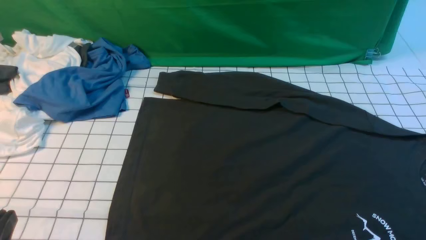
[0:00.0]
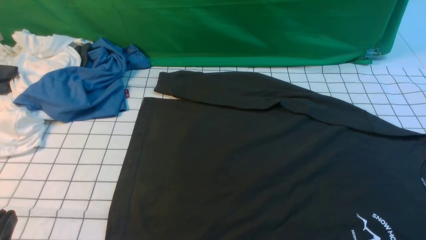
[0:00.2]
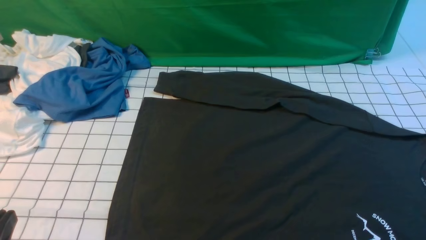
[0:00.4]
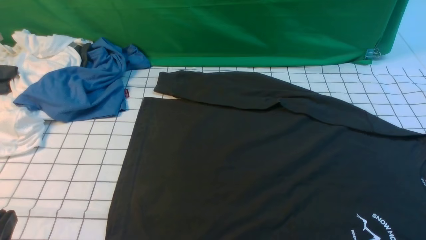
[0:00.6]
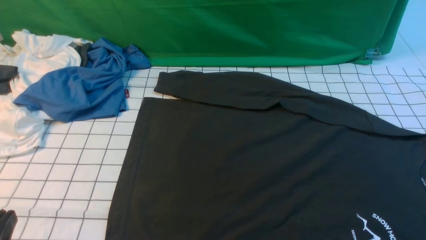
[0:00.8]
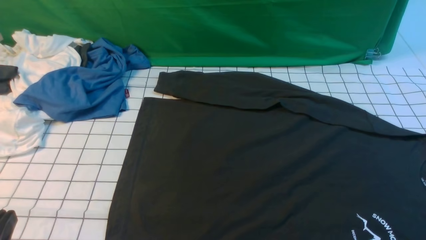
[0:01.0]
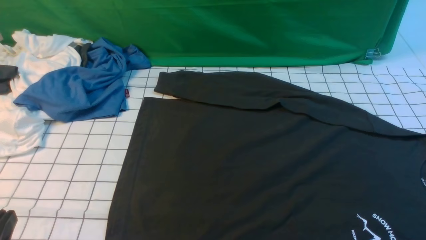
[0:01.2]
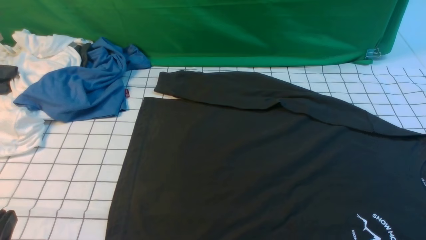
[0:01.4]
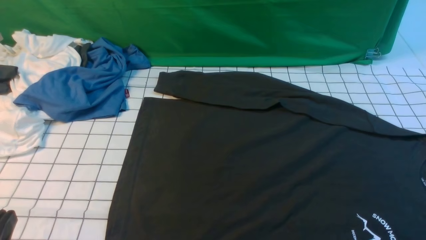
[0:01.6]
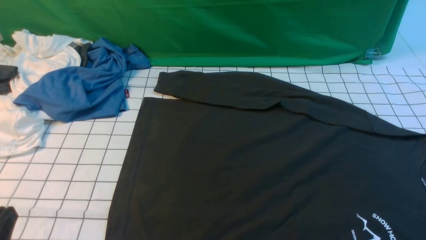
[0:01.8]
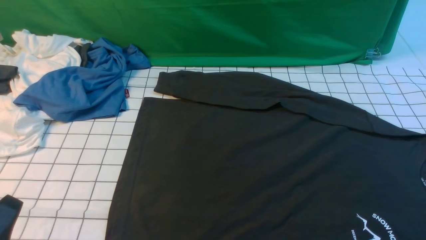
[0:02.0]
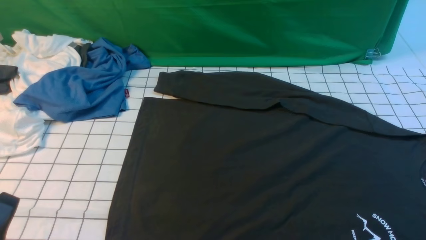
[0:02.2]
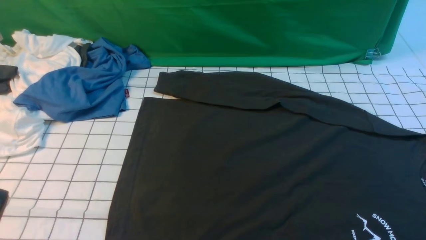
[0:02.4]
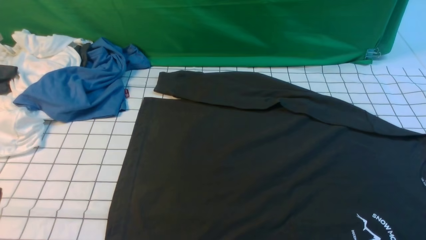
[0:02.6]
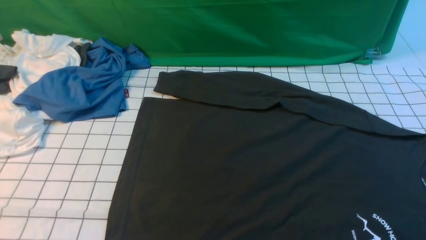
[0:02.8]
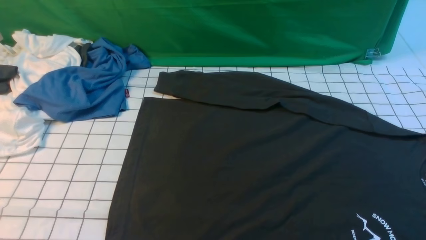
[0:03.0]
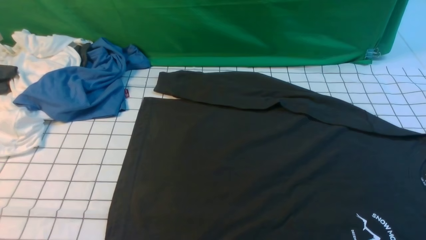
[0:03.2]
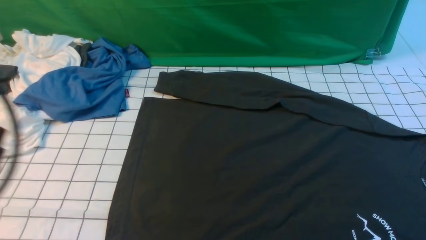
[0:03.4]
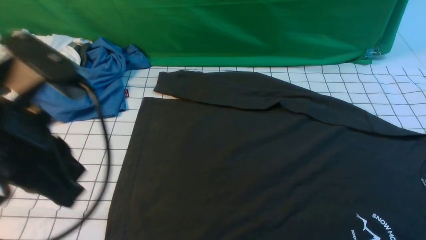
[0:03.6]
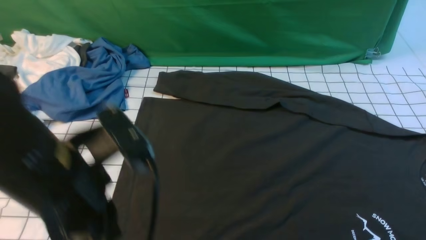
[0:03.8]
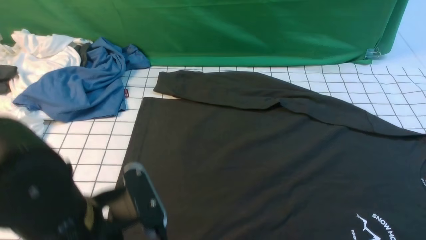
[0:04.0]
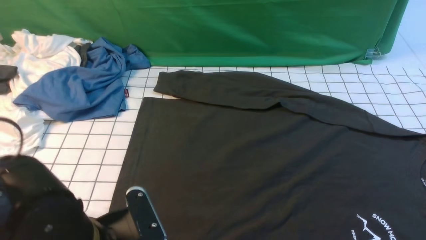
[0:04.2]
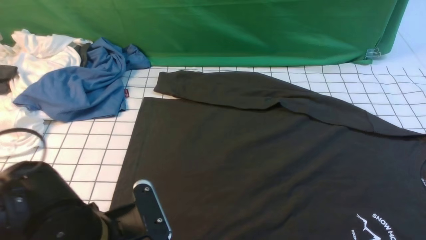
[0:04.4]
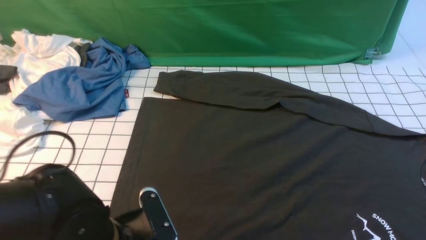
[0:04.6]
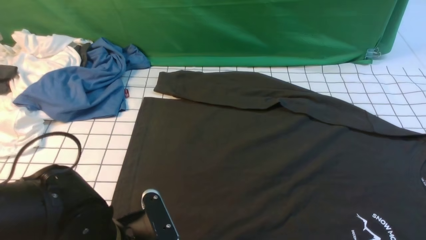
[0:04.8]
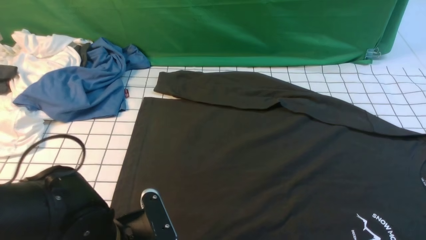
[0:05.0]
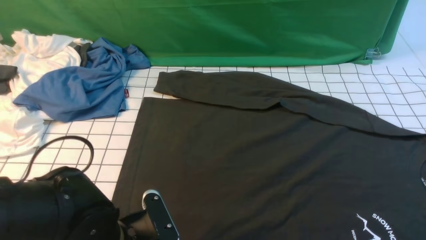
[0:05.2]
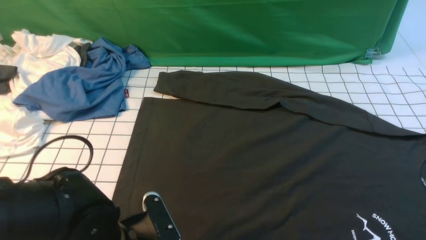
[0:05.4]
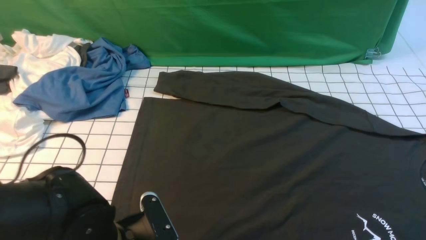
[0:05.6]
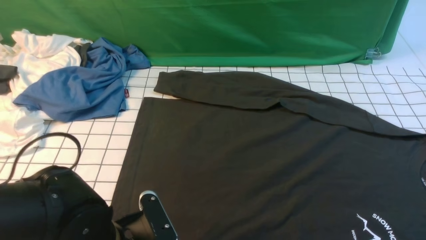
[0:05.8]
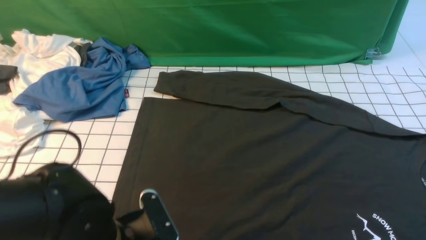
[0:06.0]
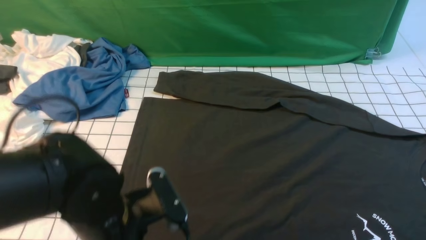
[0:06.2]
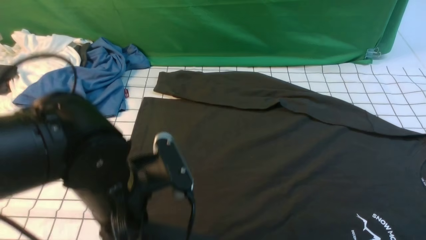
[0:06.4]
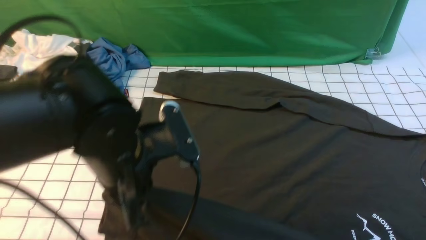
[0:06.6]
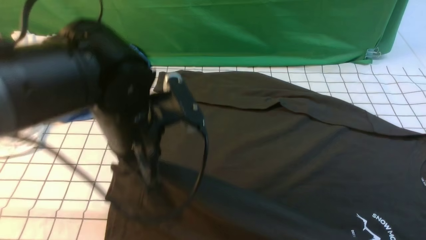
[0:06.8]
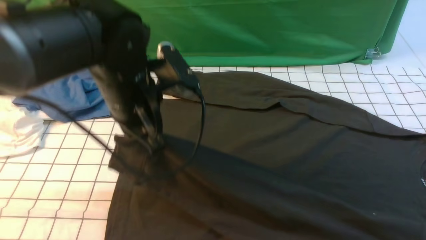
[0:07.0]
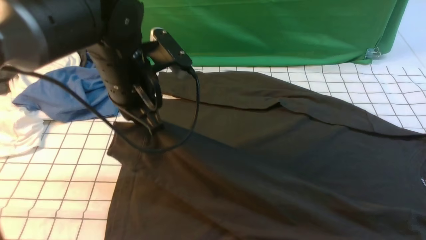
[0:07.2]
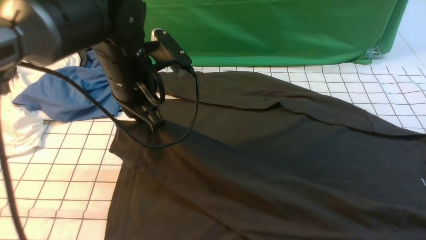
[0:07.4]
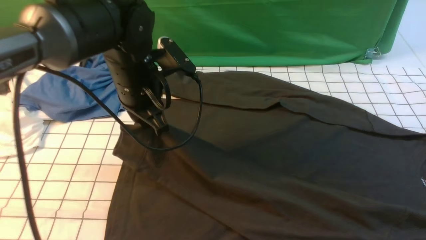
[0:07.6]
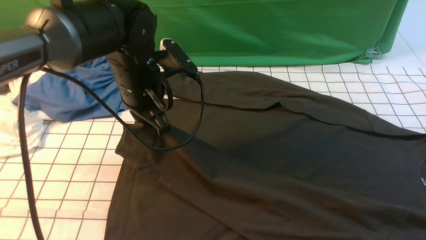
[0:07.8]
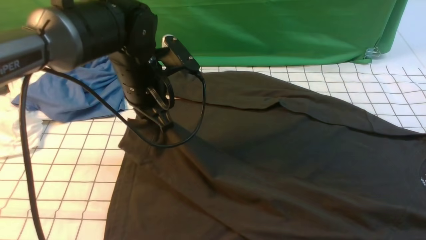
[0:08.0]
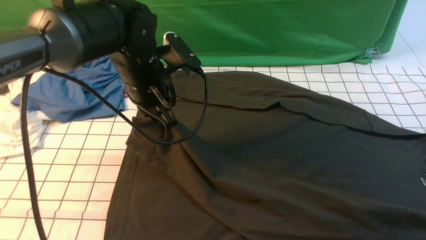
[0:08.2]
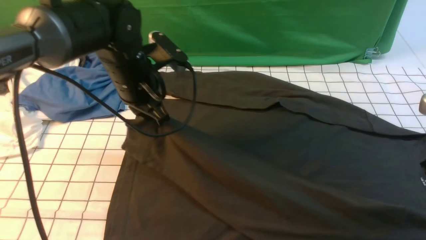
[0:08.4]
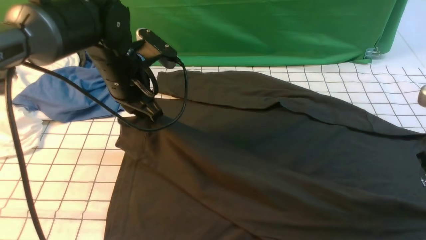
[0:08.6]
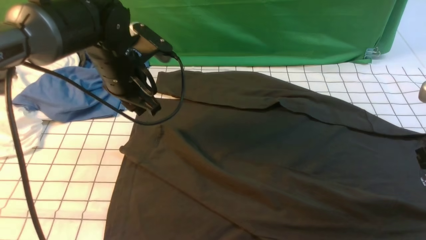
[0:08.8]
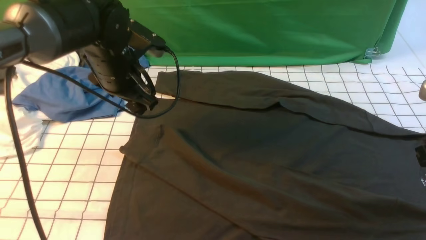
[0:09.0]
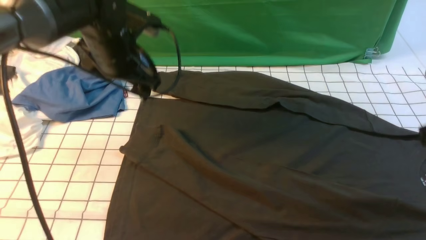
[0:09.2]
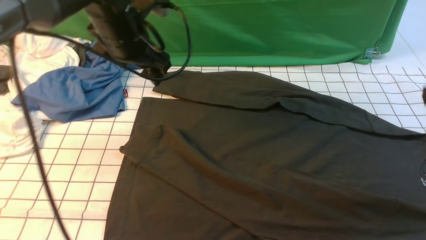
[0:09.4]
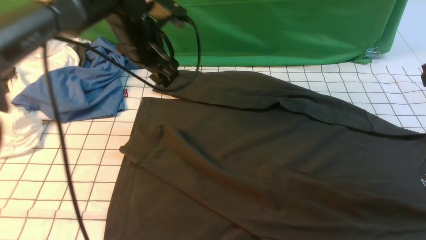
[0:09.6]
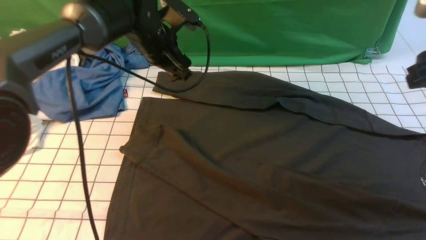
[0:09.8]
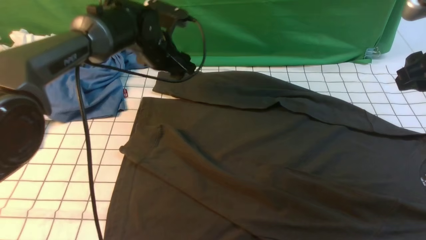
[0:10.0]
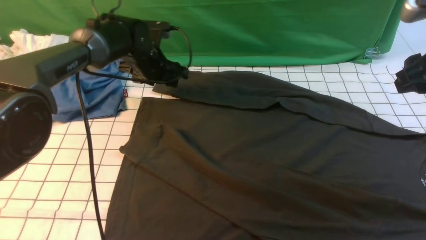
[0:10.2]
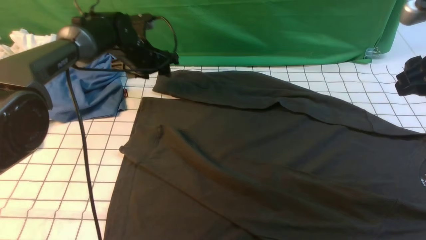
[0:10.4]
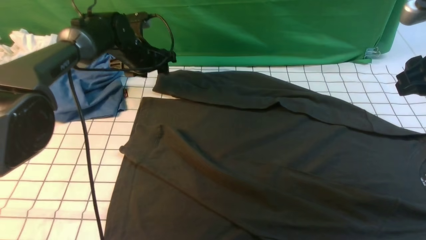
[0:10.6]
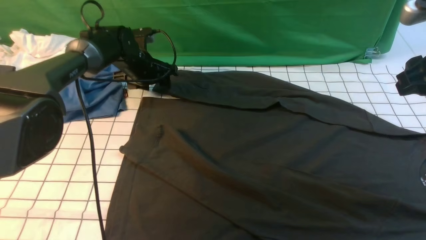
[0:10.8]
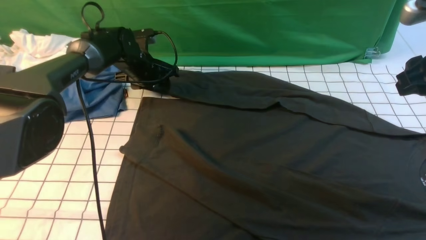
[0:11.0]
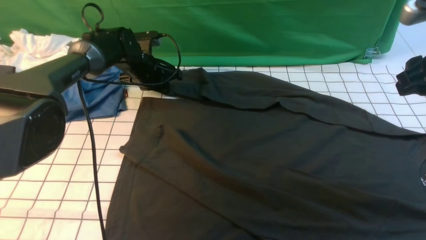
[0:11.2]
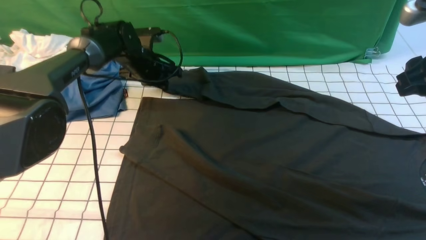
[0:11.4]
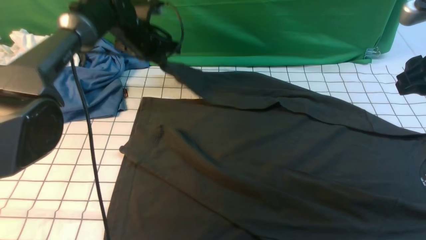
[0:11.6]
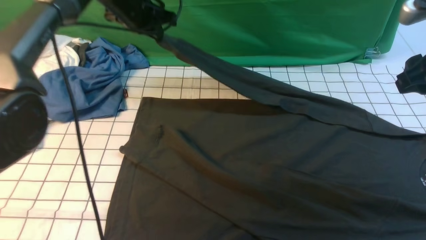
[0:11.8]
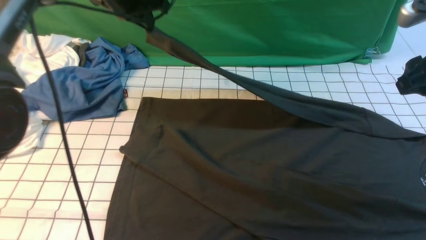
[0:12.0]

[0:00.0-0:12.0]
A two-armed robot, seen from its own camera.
Step, 0:00.0 to 0:06.2: use the left arm to clamp the cuff closest to it.
Step, 0:06.4 to 0:08.8: use the left arm to drag and place the cuff at the centered position on the left edge of the fabric.
Step, 0:09.0 to 0:11.4: use the left arm to clamp the cuff farthest from it.
0:00.0 to 0:01.6: Neither gripper changes place.
0:03.0 to 0:04.4: The left gripper goes some 20 cm downward, to the right and forward, and opens its fingers. Meanwhile the right gripper goes about 5 cm upward.
0:04.4 to 0:06.0: The left gripper closes.
0:06.0 to 0:07.6: The right gripper travels forward by about 5 cm; the left gripper moves forward and upward, approximately 20 cm.
0:07.6 to 0:09.0: The left gripper ends up approximately 5 cm from where it was, and opens its fingers. Meanwhile the right gripper goes roughly 10 cm forward and downward, and opens up.
0:09.0 to 0:10.4: The left gripper goes about 15 cm forward and downward, while the right gripper heads upward and forward, covering some 10 cm.
0:10.4 to 0:12.0: The left gripper travels upward by some 15 cm, and closes.

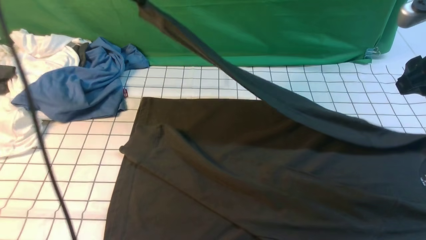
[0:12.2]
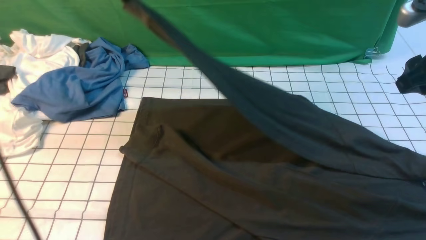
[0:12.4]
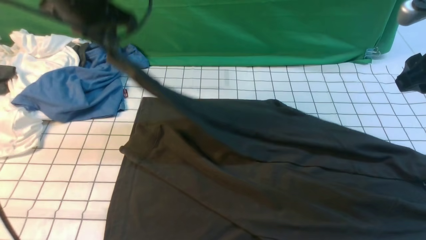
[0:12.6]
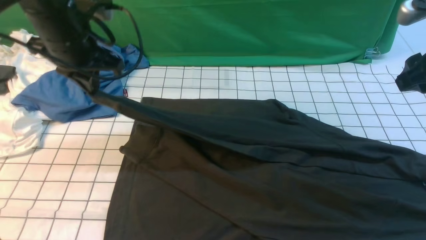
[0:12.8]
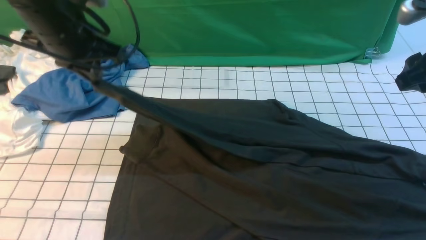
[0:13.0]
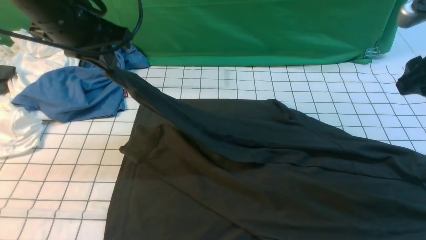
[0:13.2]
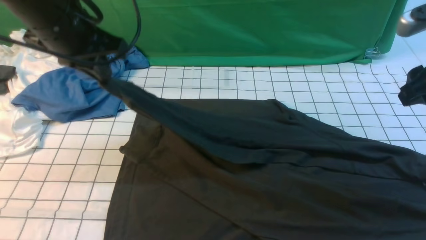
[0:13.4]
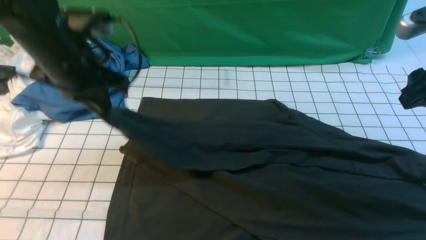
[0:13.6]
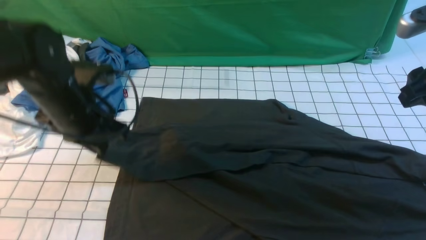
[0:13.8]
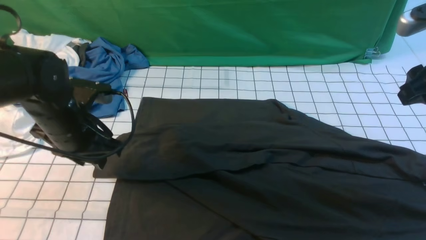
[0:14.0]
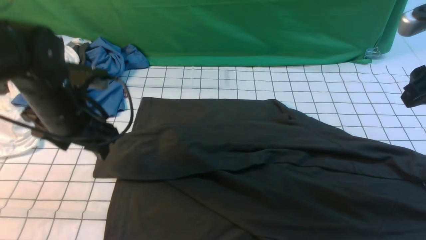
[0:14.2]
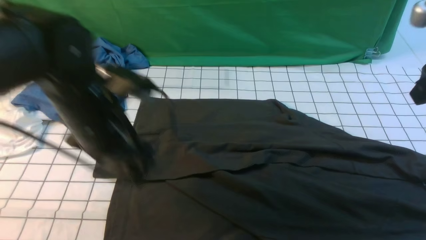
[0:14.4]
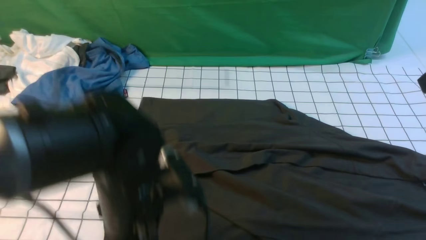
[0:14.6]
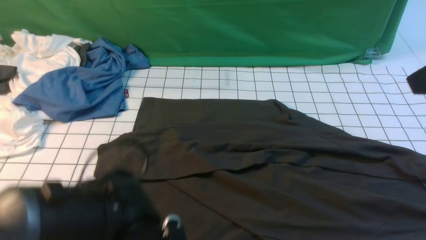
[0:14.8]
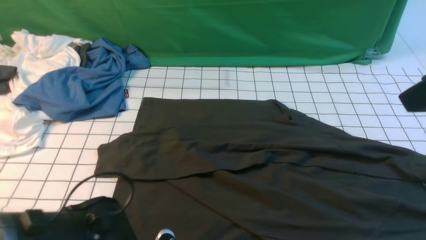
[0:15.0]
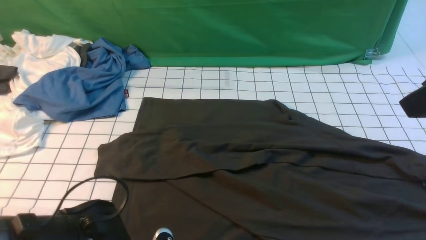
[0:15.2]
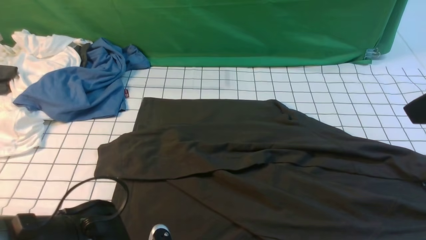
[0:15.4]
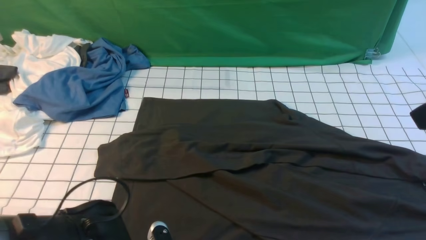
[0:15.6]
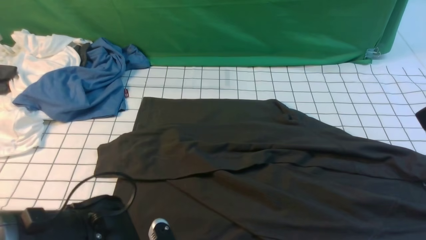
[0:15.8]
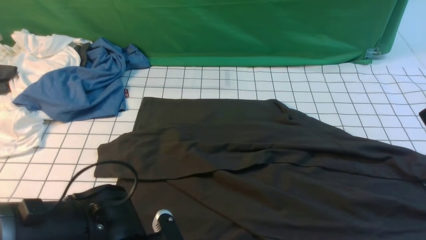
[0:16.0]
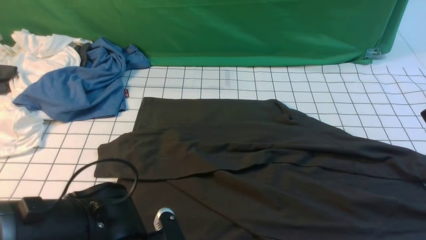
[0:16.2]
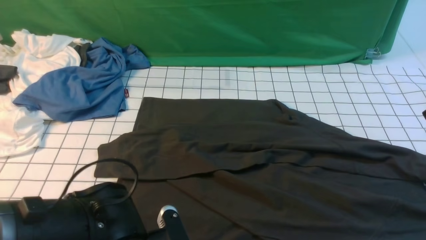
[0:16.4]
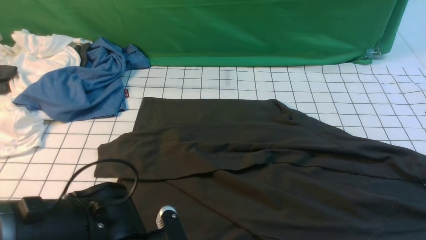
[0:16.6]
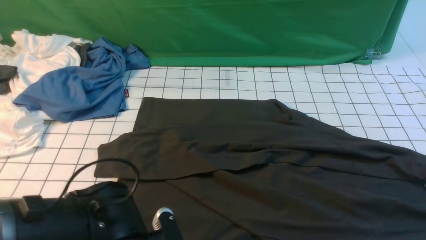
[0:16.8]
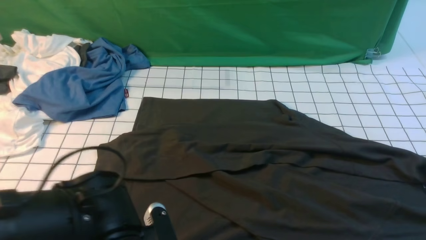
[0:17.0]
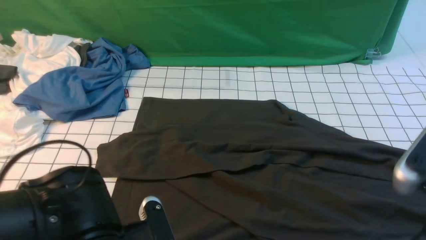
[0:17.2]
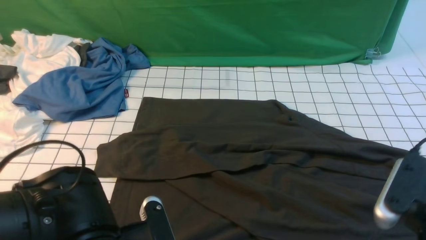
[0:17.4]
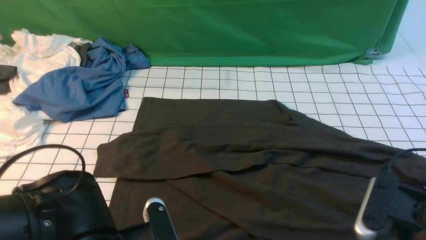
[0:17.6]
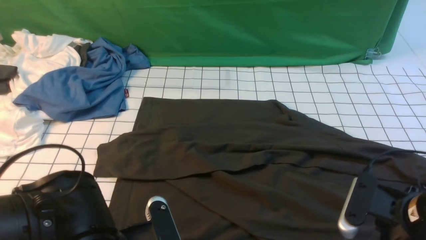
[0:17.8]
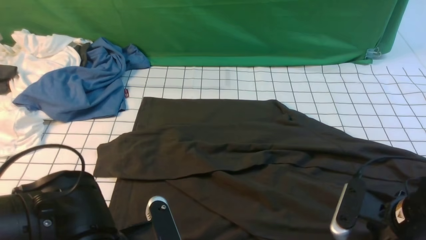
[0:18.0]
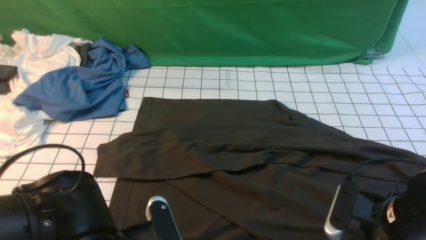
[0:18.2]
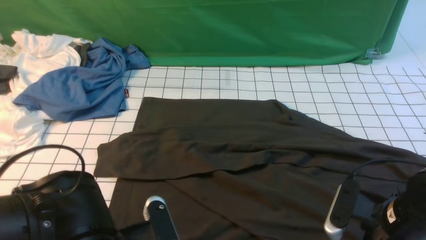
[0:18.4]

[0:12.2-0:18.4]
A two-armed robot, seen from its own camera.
Step, 0:12.2 to 0:14.0: use the left arm to drag and drop the cuff onto the cuff closest to the left arm.
0:12.2 to 0:13.8: The left gripper heads downward and backward, covering some 20 cm.
0:13.8 to 0:15.4: The left gripper is displaced backward, to the right and downward by about 25 cm, and opens, then closes again. Meanwhile the right gripper is displaced backward and upward by some 15 cm.
0:15.4 to 0:16.8: The left gripper closes up.
0:16.8 to 0:18.4: The right gripper is displaced downward by some 25 cm, and closes up.
